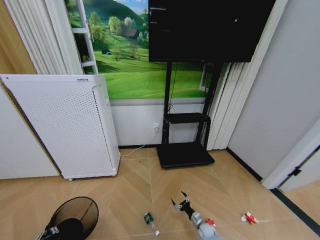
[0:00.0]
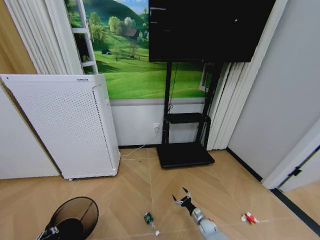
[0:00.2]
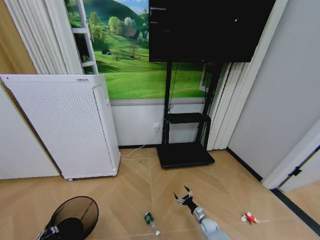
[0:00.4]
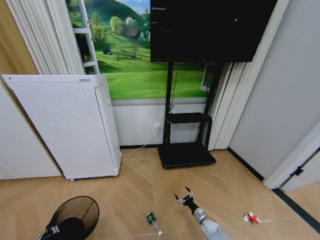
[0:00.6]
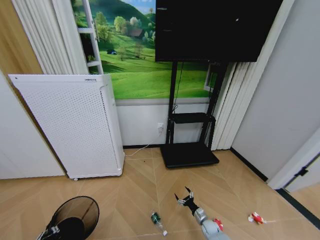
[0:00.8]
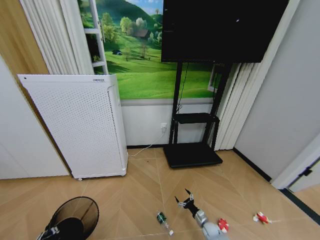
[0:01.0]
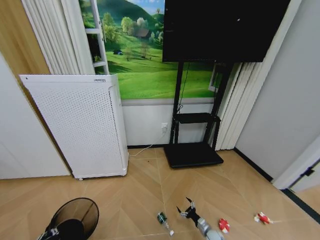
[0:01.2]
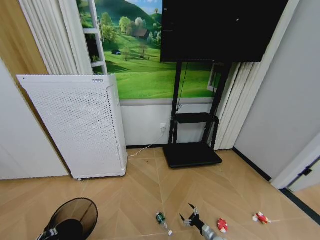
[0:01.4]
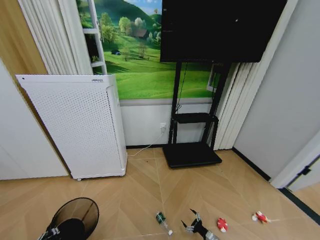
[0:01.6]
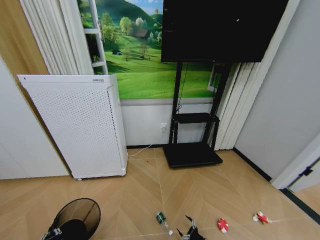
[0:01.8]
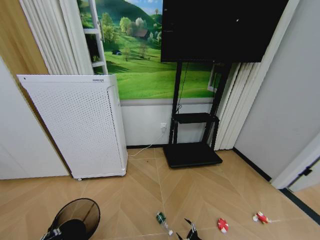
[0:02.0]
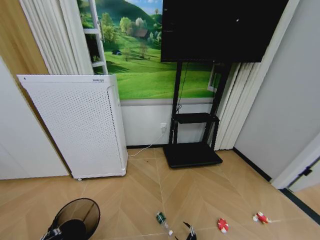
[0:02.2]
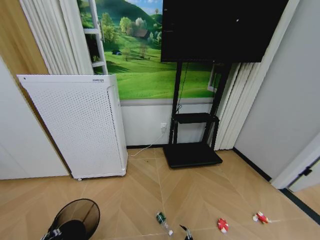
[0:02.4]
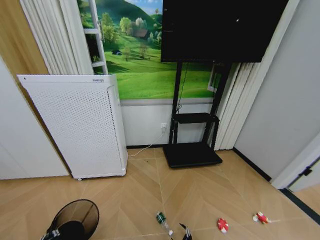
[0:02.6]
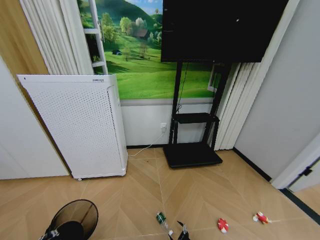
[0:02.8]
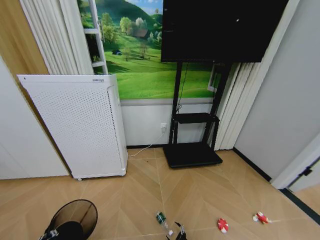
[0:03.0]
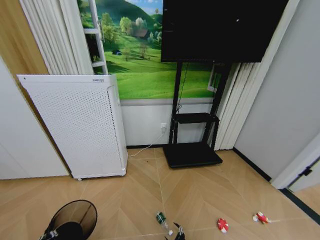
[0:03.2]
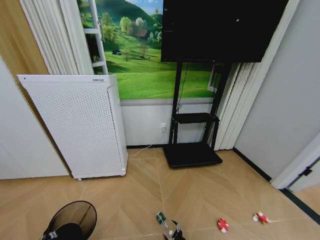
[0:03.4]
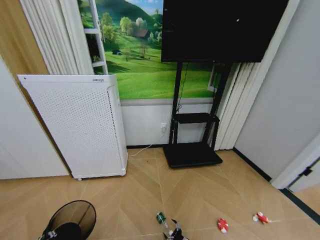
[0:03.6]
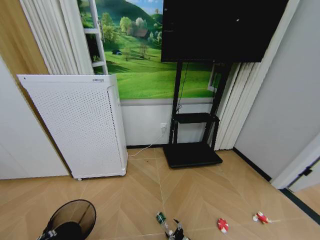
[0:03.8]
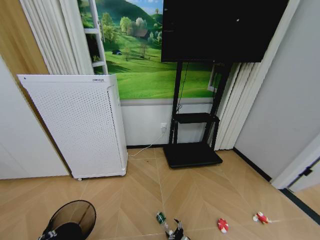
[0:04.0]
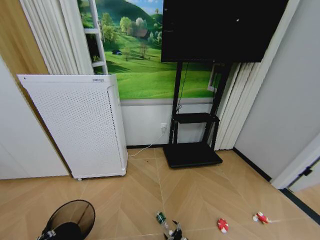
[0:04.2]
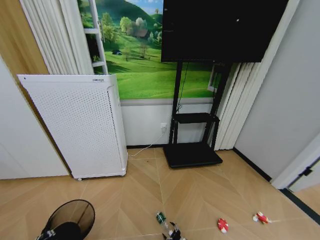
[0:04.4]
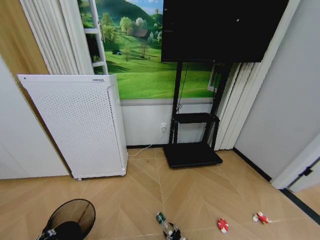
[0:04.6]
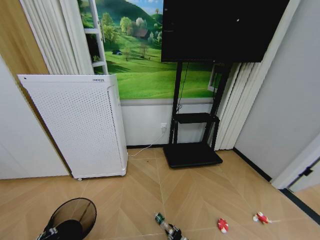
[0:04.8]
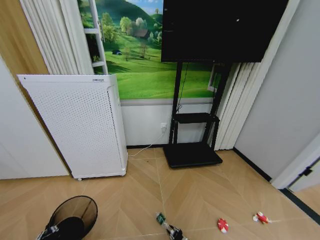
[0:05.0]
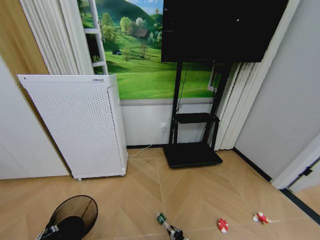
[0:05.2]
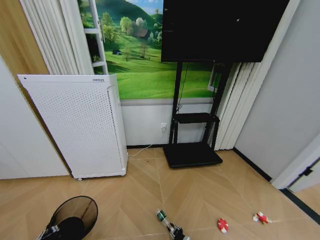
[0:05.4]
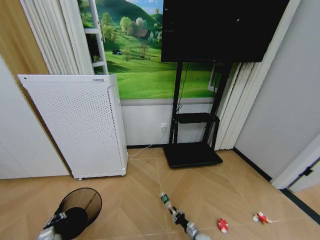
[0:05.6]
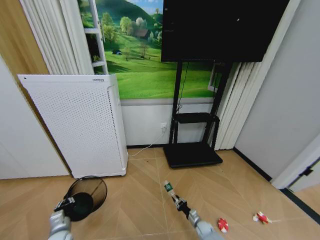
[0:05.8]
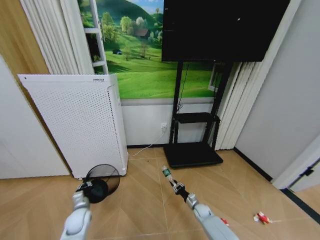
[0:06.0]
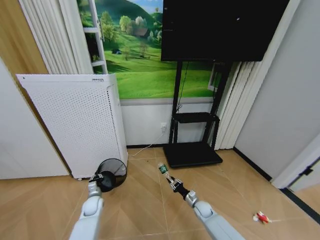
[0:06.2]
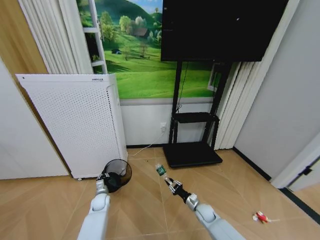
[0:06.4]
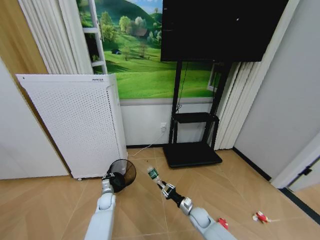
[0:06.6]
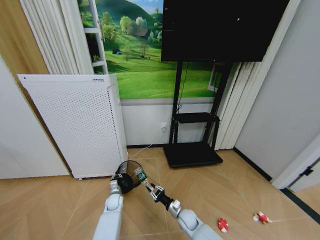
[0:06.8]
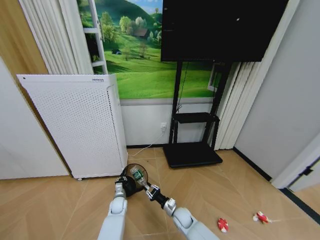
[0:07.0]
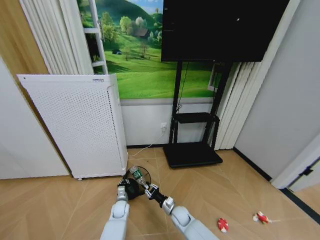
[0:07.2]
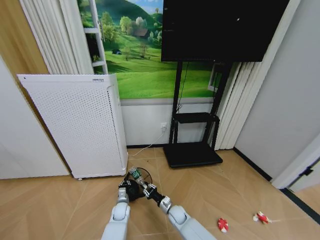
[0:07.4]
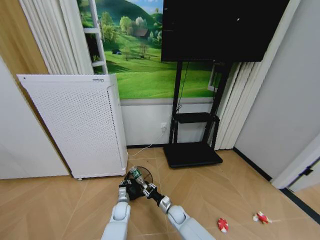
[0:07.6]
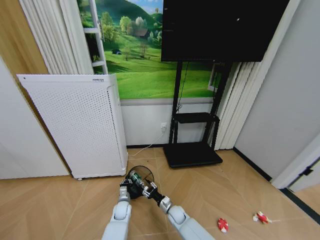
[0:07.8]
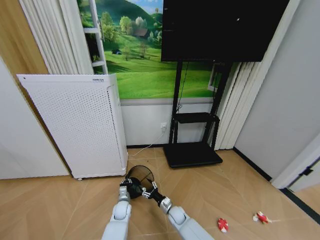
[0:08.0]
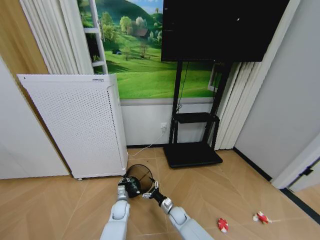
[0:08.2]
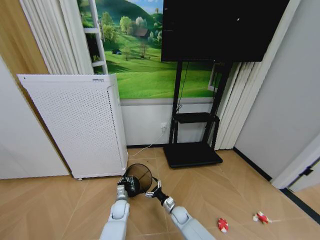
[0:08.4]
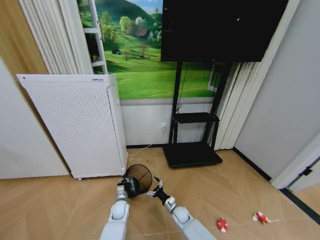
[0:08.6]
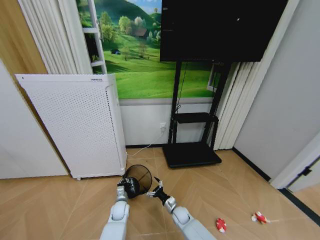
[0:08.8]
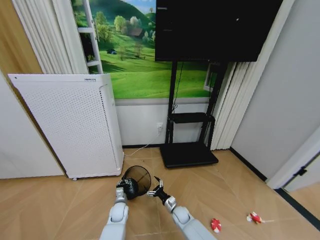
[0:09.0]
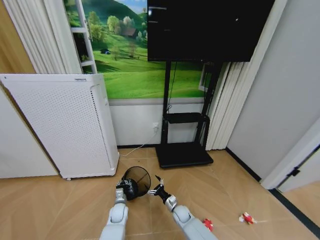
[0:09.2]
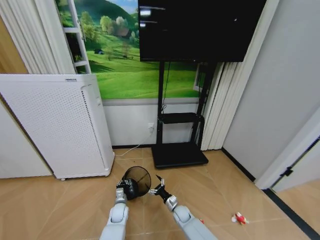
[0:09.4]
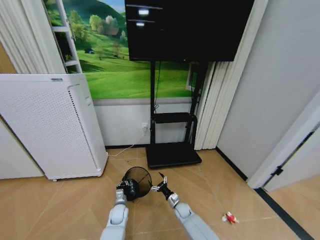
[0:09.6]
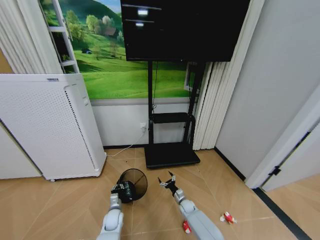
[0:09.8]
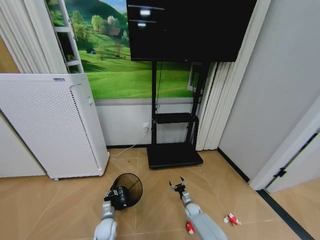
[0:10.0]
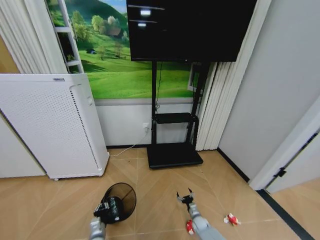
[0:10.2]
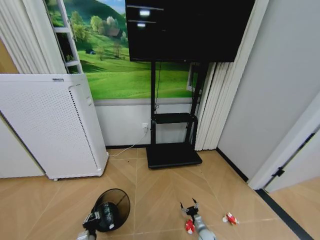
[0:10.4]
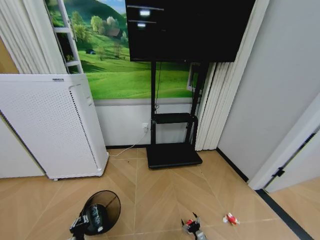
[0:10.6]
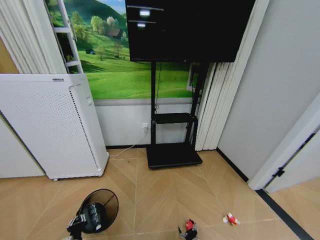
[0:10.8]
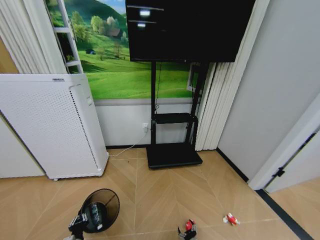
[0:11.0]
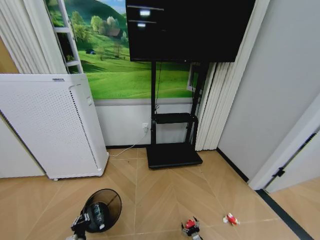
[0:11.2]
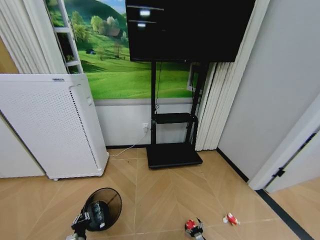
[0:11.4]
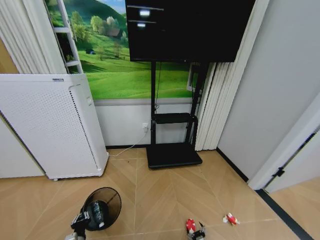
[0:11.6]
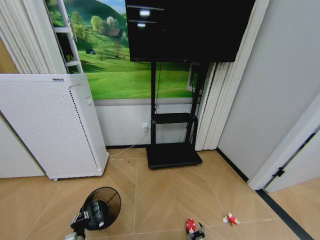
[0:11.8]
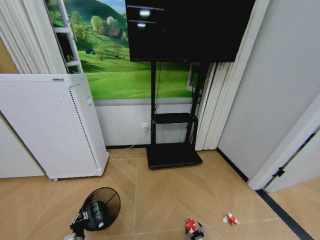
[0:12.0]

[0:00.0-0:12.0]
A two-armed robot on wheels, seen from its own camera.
Task of the whole recording: Pick up the trash bin and place the garbage on the floor into it.
0:00.0 to 0:01.6: The right gripper travels backward and to the right by approximately 10 cm.
0:01.6 to 0:03.0: The right gripper moves to the left, roughly 10 cm.
0:04.4 to 0:06.0: The left gripper shifts some 15 cm forward, while the right gripper is displaced forward and upward by about 20 cm, and closes.
0:06.0 to 0:07.6: The left gripper goes approximately 20 cm to the right, downward and forward. The right gripper is displaced to the left by some 15 cm.
0:07.6 to 0:09.0: The right gripper opens up.
0:09.0 to 0:10.4: The left gripper shifts some 25 cm backward and to the left; the right gripper travels to the right, downward and backward by about 20 cm.
0:10.4 to 0:12.0: The right gripper is displaced backward by about 10 cm.

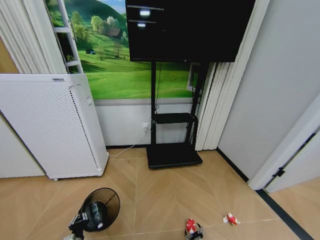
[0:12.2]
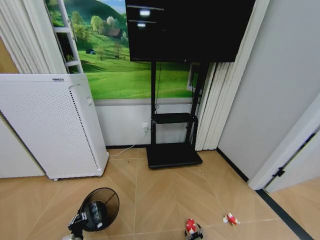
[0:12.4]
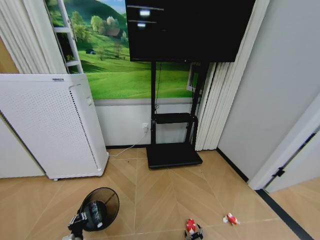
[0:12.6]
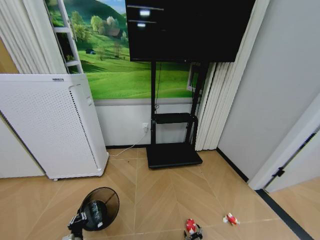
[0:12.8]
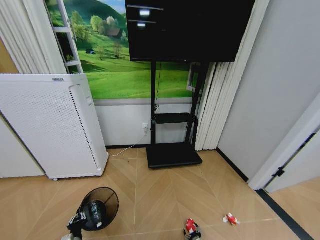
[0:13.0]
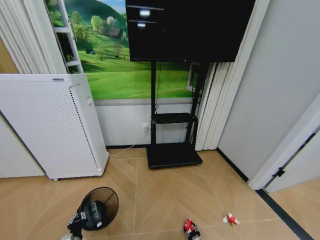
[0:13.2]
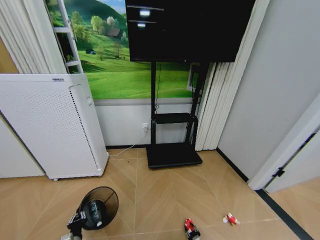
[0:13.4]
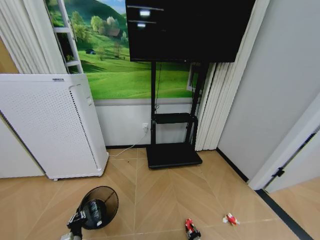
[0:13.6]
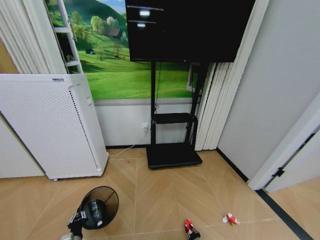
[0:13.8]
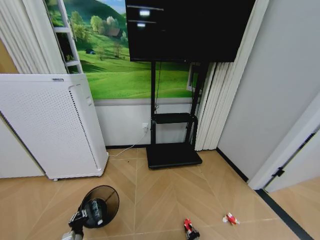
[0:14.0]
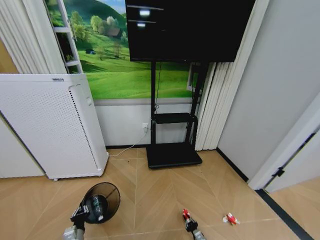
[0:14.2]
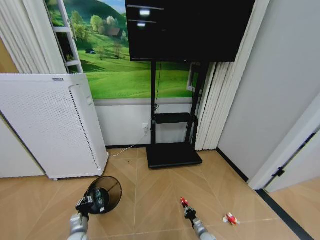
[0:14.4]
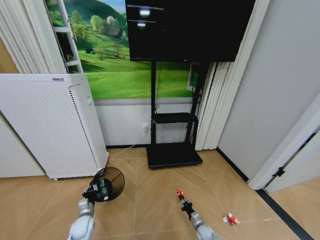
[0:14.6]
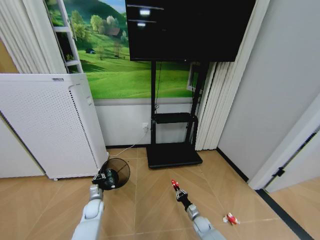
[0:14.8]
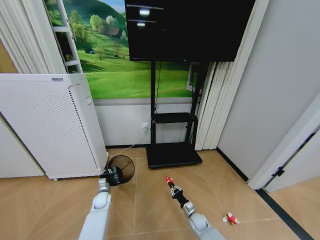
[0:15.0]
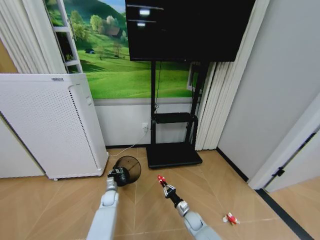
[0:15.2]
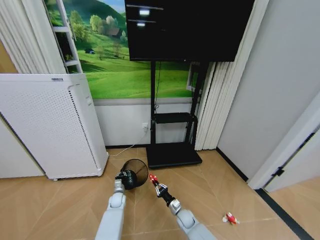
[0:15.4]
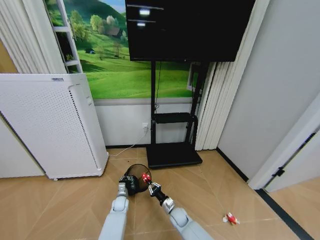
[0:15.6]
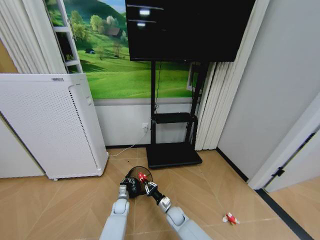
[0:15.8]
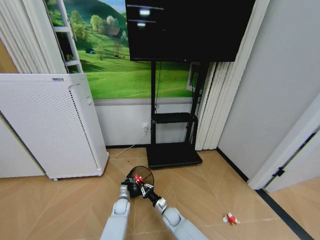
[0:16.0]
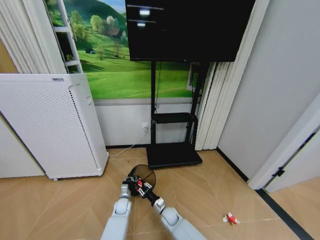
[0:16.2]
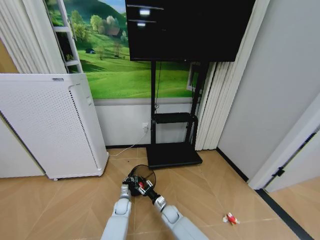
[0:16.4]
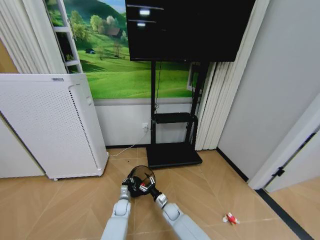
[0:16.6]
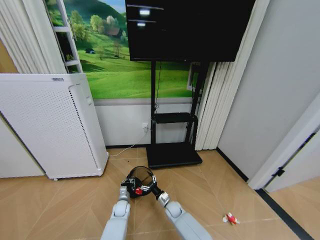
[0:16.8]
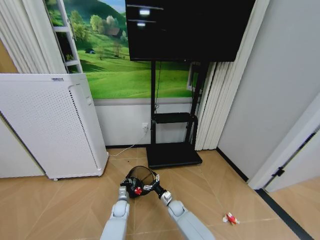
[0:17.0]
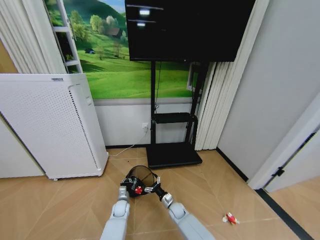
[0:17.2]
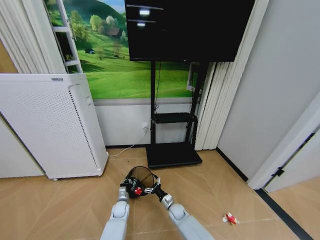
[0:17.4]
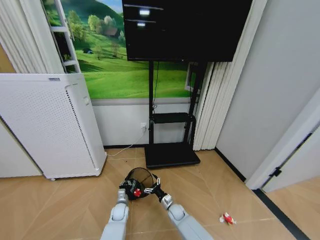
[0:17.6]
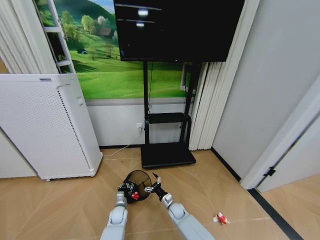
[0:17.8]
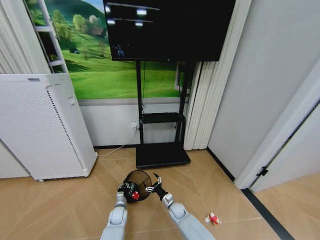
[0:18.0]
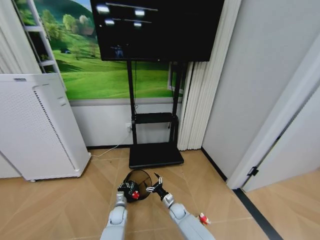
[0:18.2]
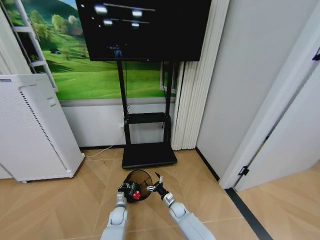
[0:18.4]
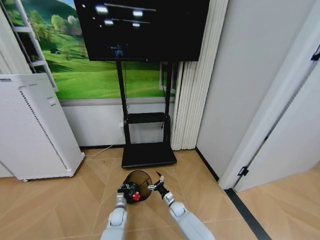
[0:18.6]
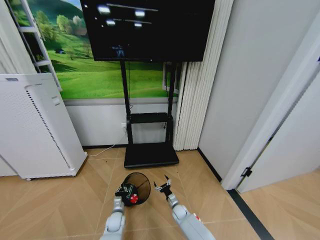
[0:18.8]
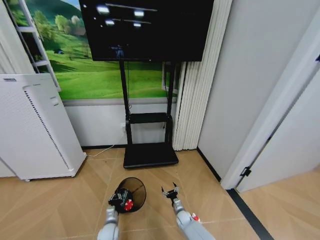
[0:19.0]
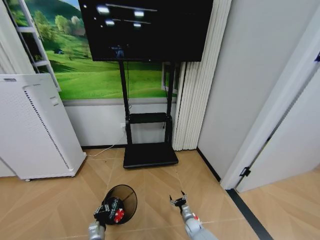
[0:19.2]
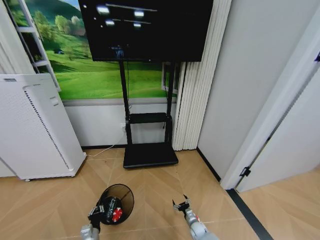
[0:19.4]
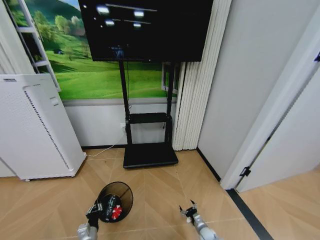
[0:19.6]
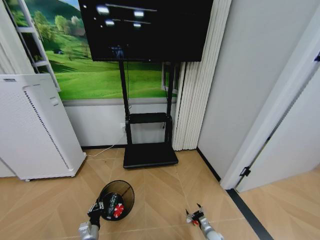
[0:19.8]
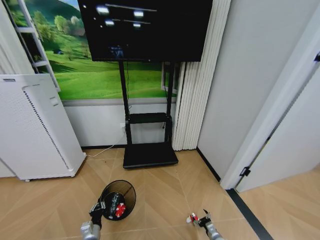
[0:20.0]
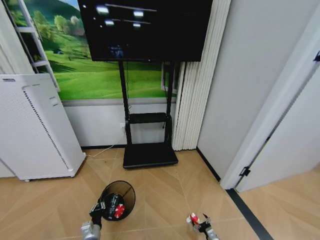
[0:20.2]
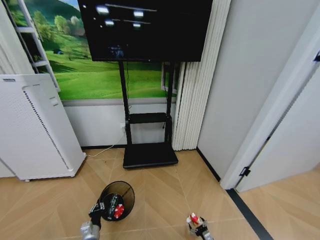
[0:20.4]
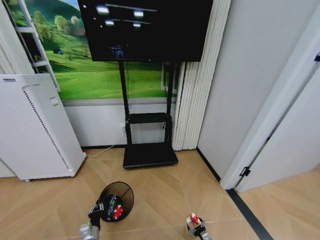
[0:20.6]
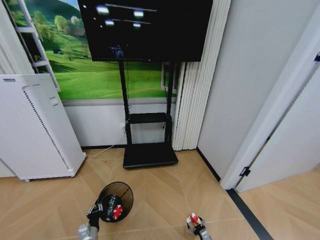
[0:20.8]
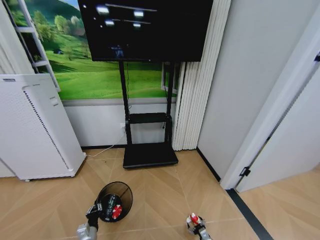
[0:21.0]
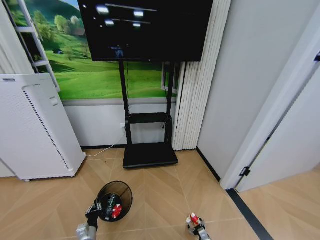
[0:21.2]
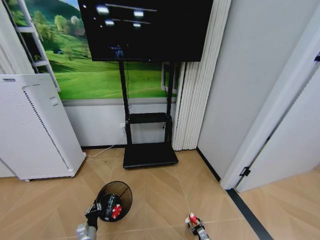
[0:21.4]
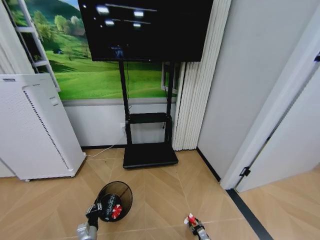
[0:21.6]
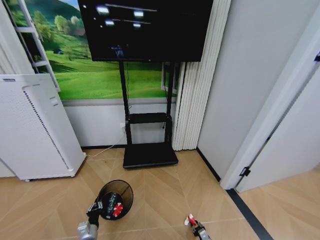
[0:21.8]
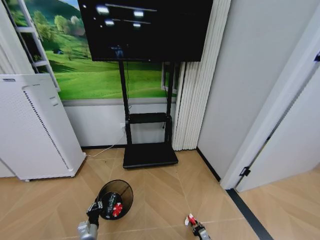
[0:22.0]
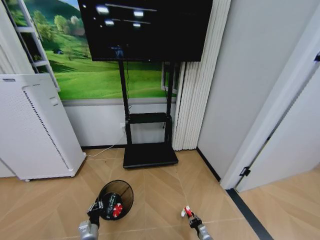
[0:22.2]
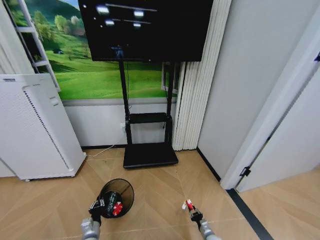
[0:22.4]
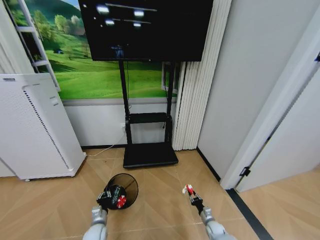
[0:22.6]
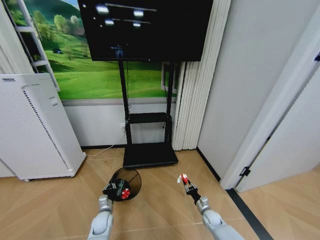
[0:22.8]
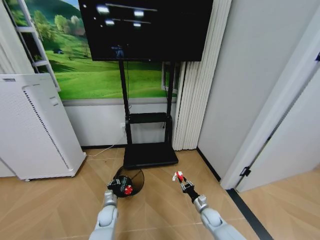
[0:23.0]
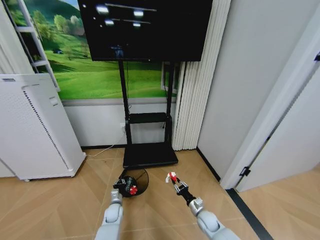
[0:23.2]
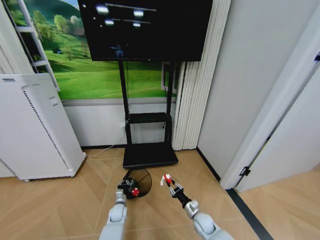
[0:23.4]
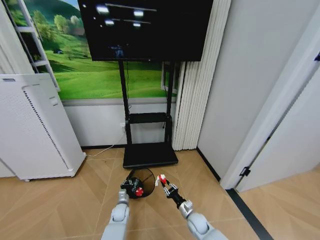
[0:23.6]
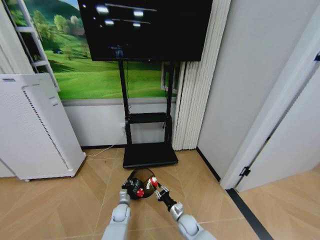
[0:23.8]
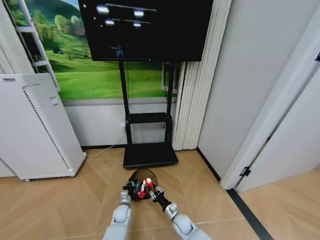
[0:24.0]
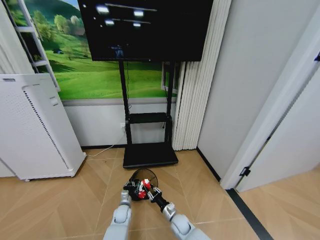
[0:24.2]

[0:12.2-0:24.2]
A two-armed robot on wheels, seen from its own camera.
Task of the whole recording: Pick up the trash bin and place the garbage on the floor into it.
0:12.2 to 0:13.8: The right gripper closes.
0:13.8 to 0:15.2: The right gripper heads forward, upward and to the left, covering roughly 25 cm; the left gripper shifts roughly 25 cm forward.
0:15.2 to 0:16.6: The right gripper heads to the left, covering about 10 cm, and opens up. The left gripper moves to the right, roughly 5 cm.
0:18.2 to 0:19.8: The left gripper travels backward and to the left by roughly 20 cm. Meanwhile the right gripper shifts some 25 cm to the right, backward and downward.
0:19.8 to 0:21.2: The right gripper moves some 5 cm.
0:21.2 to 0:22.6: The left gripper shifts by some 5 cm, while the right gripper heads forward and upward, covering about 10 cm, and closes up.
0:22.6 to 0:24.2: The right gripper moves to the left and upward, some 25 cm, while the left gripper heads forward and to the right, covering about 15 cm.
